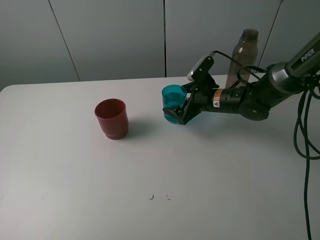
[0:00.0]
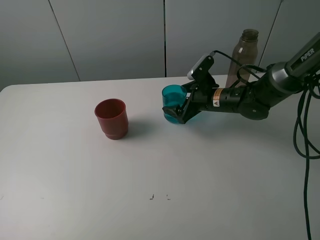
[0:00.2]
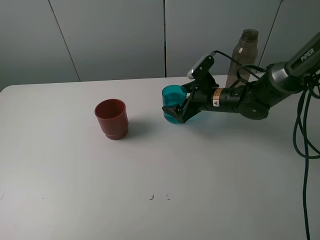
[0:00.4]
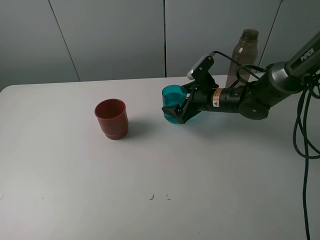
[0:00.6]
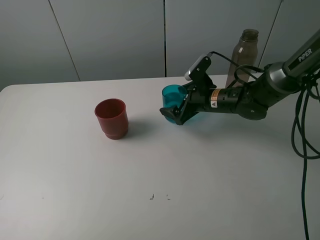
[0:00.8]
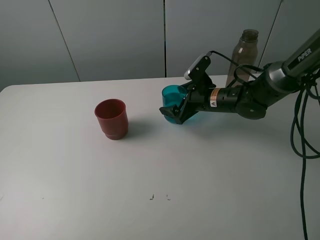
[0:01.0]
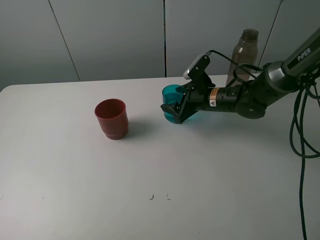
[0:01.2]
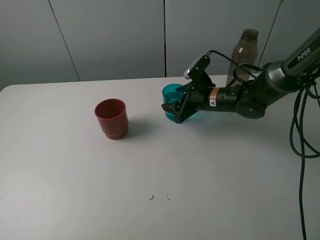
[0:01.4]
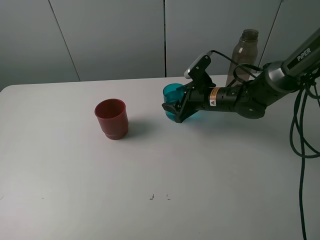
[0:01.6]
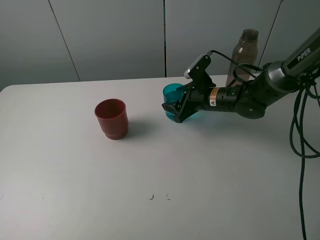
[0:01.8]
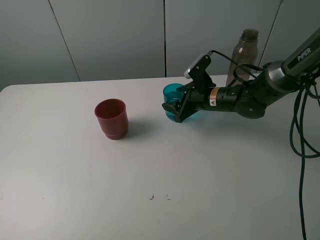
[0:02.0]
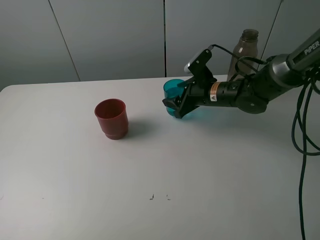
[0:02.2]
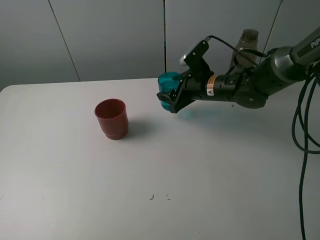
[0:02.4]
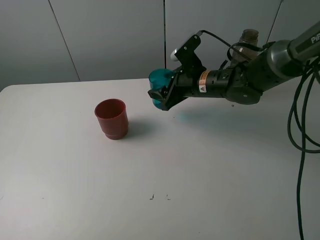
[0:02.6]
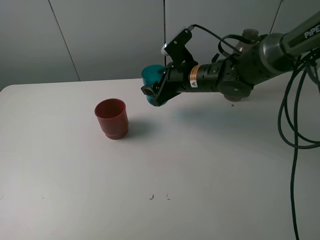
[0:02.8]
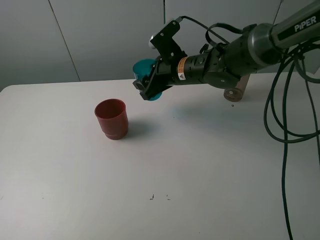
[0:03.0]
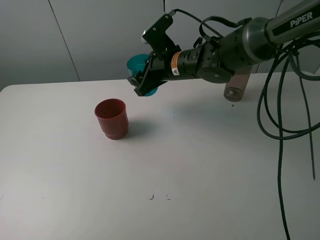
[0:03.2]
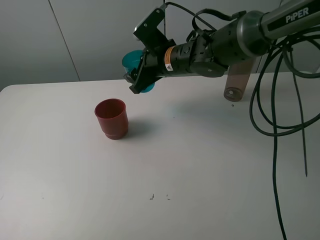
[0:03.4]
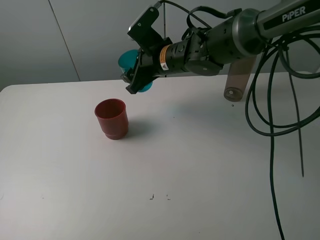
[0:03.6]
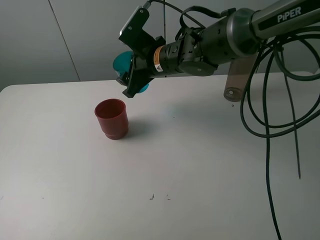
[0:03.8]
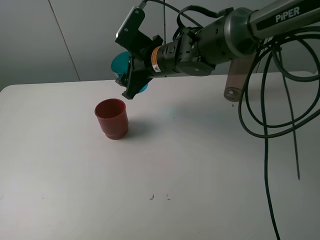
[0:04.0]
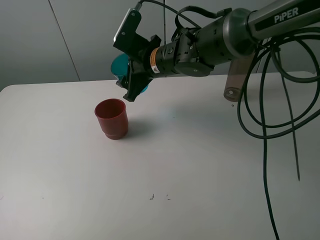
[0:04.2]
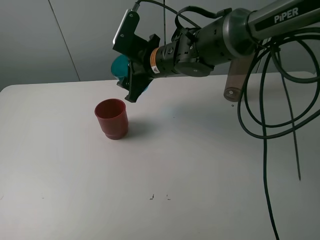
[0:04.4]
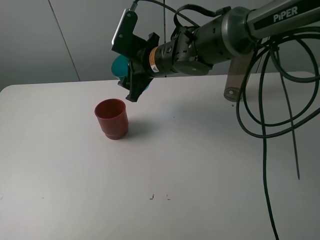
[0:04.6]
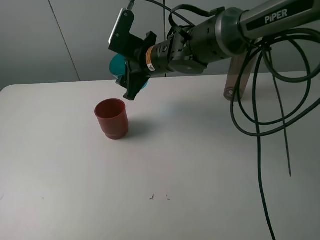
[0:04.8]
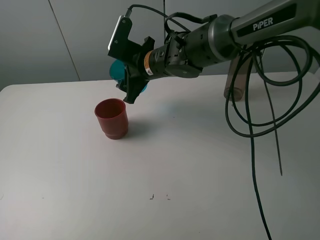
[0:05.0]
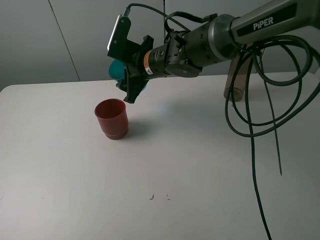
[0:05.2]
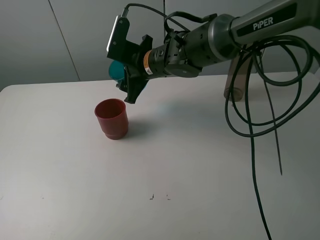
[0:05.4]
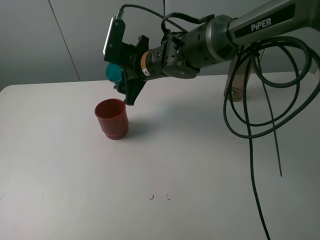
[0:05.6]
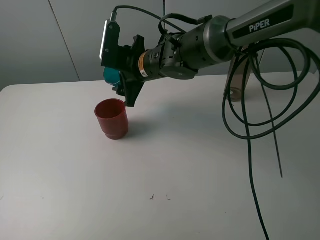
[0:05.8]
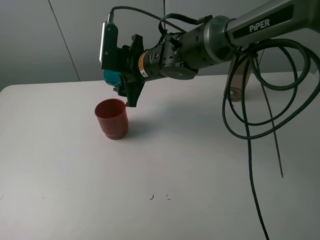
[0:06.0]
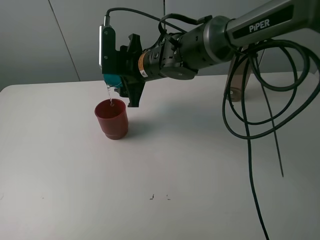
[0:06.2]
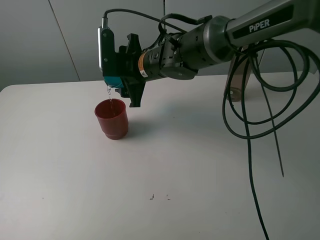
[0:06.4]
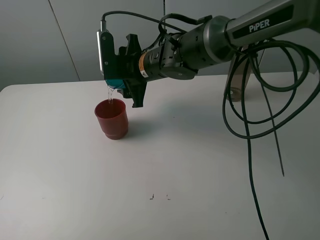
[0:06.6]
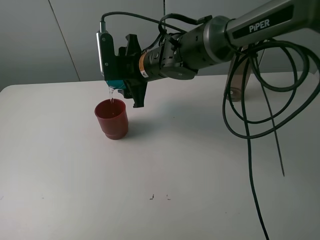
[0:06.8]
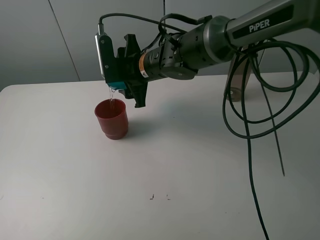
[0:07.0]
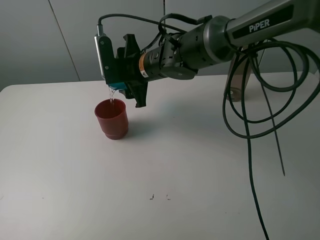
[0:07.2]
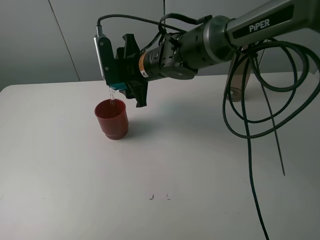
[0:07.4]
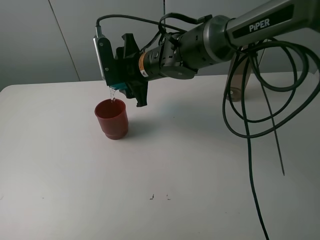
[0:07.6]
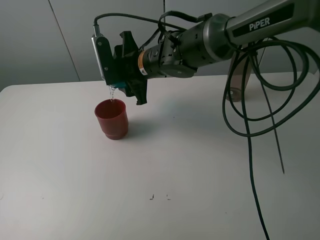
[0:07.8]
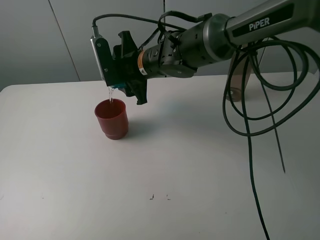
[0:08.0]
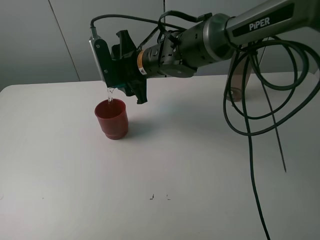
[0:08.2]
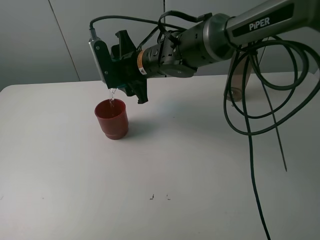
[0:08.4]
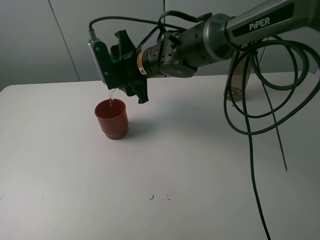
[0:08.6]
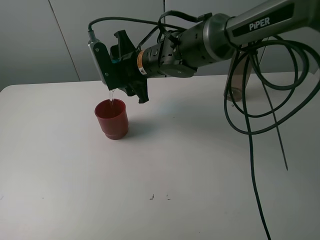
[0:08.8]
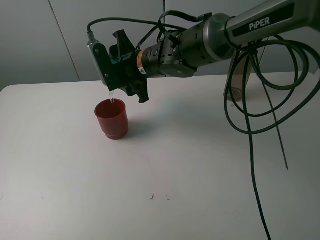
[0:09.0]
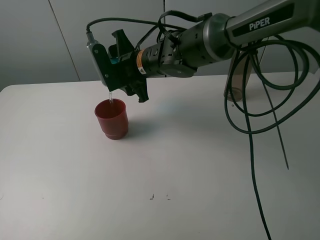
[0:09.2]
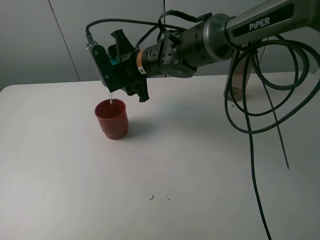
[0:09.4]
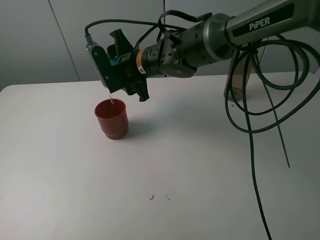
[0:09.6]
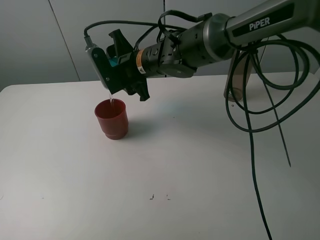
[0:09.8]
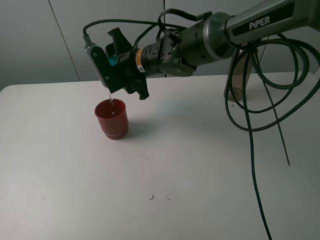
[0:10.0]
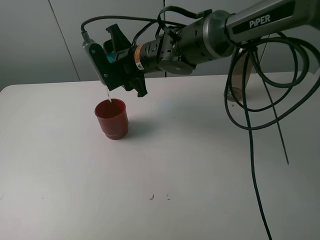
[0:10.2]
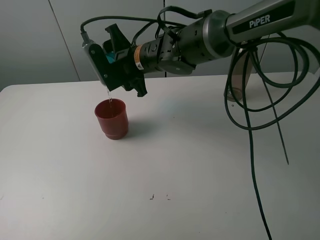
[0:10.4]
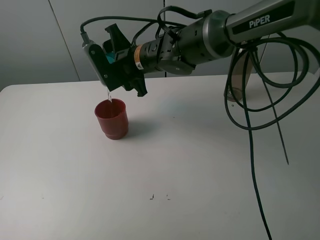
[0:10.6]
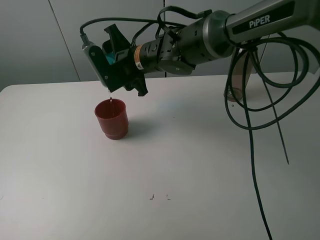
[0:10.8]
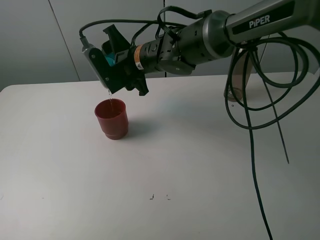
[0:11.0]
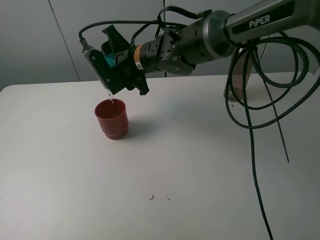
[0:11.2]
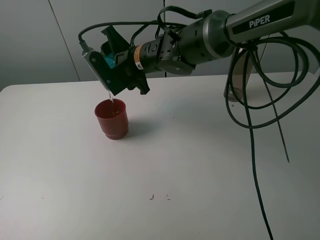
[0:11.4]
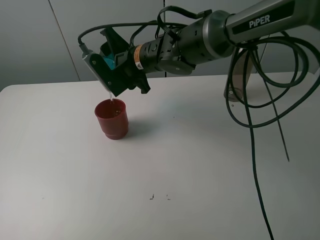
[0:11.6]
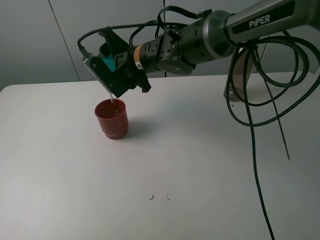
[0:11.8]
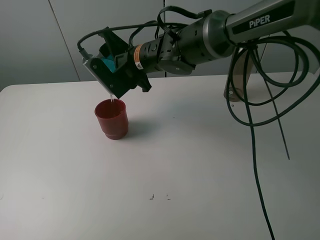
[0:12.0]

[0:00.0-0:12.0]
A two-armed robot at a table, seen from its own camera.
Task of the whole recording: pick up the bottle and pour water into the cup, then pick up the cup containing water and pour it into another cup.
0:00.0 to 0:01.6: The right gripper closes up.
0:01.6 to 0:03.0: The right gripper goes roughly 10 cm upward and to the left.
0:03.0 to 0:04.4: The right gripper ends up about 5 cm from where it was.
0:04.4 to 0:06.0: The grippers move only a little.
0:06.0 to 0:07.6: The grippers stay close to where they were, moving slightly.
0:07.6 to 0:10.4: There are only small adjustments of the grippers.
0:10.4 to 0:12.0: The grippers stay close to where they were, moving slightly.

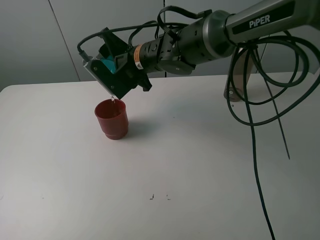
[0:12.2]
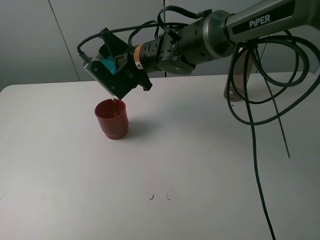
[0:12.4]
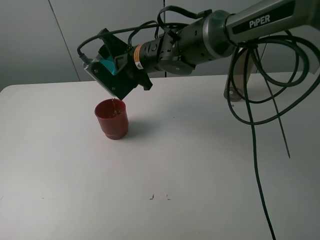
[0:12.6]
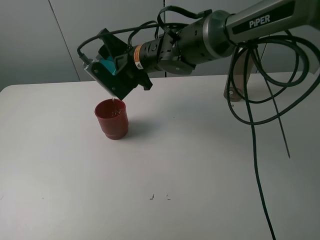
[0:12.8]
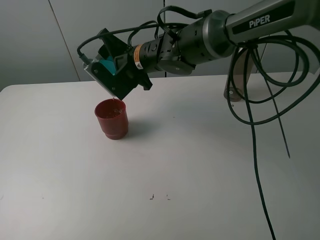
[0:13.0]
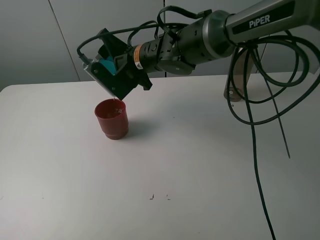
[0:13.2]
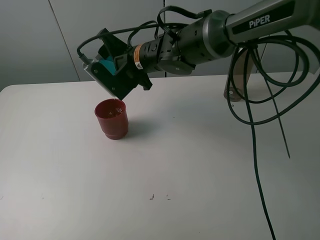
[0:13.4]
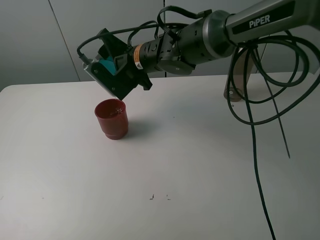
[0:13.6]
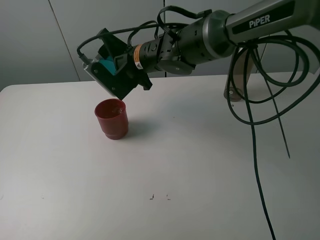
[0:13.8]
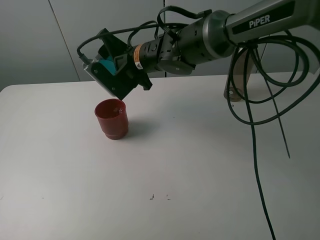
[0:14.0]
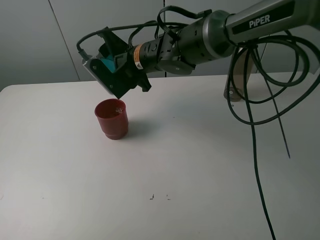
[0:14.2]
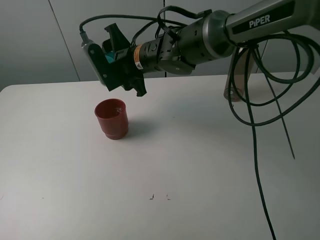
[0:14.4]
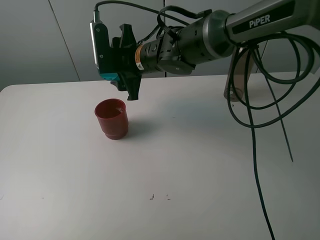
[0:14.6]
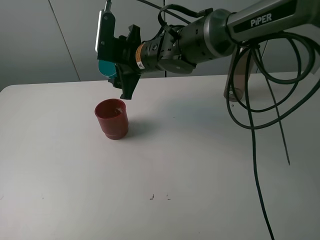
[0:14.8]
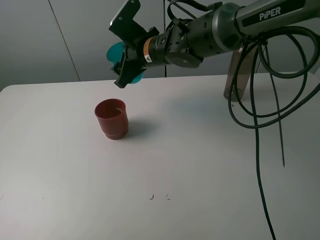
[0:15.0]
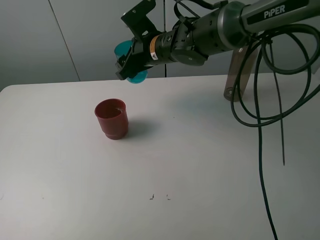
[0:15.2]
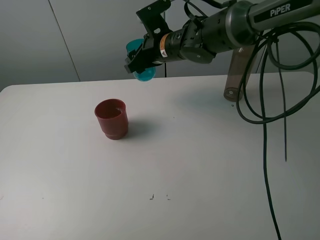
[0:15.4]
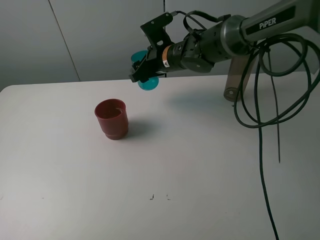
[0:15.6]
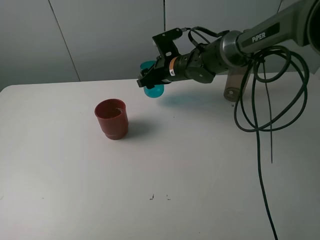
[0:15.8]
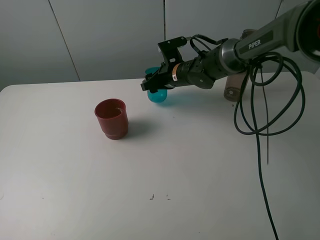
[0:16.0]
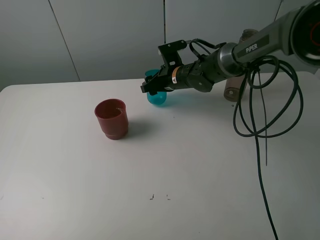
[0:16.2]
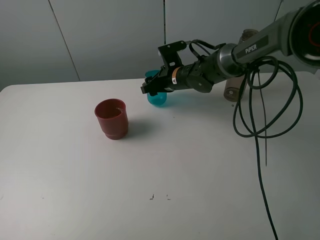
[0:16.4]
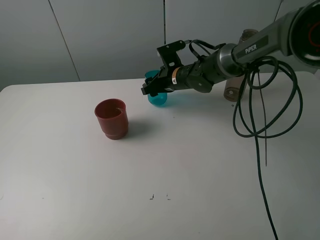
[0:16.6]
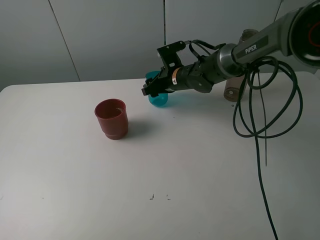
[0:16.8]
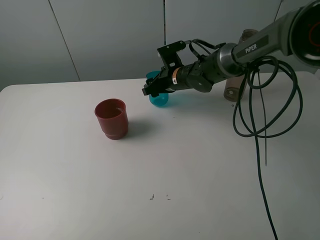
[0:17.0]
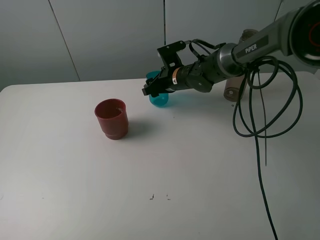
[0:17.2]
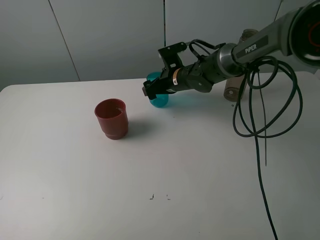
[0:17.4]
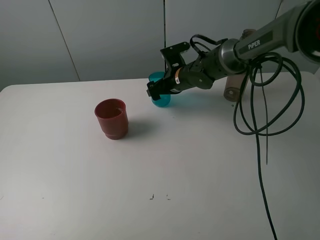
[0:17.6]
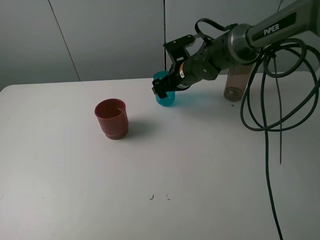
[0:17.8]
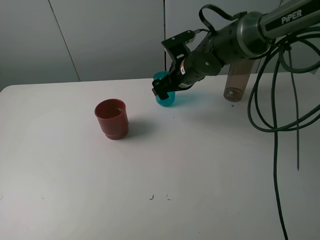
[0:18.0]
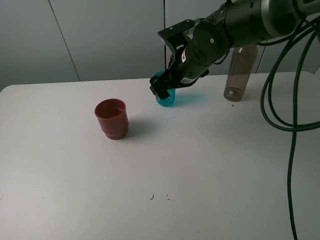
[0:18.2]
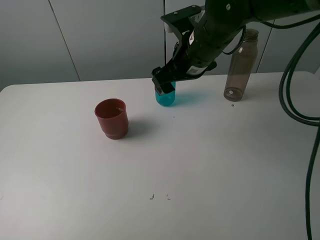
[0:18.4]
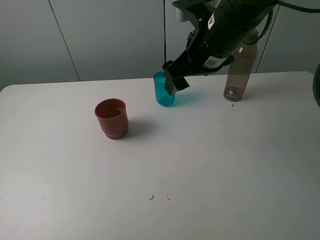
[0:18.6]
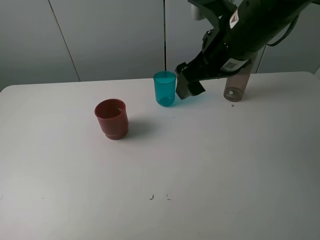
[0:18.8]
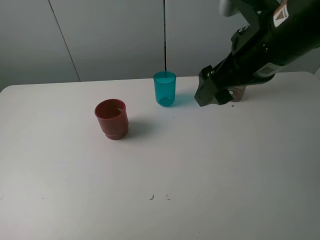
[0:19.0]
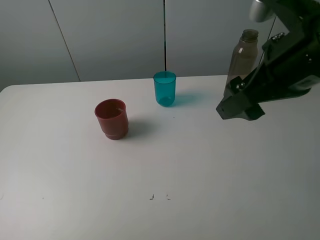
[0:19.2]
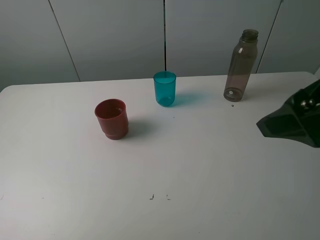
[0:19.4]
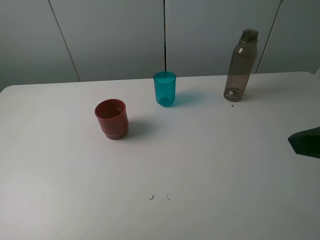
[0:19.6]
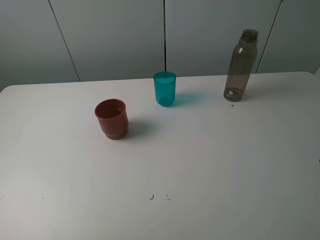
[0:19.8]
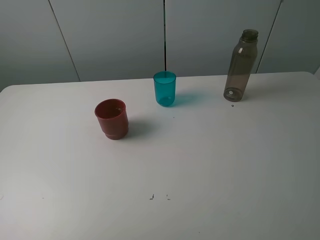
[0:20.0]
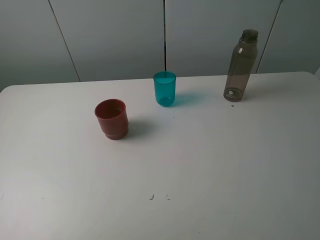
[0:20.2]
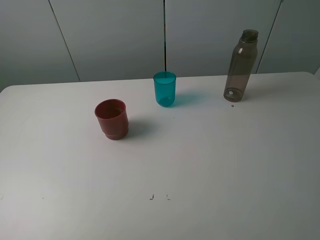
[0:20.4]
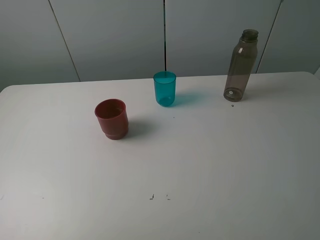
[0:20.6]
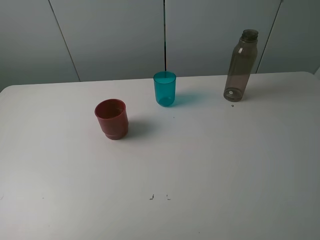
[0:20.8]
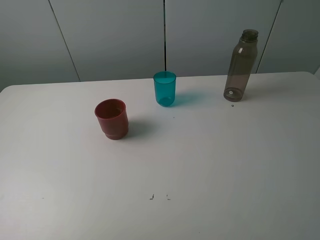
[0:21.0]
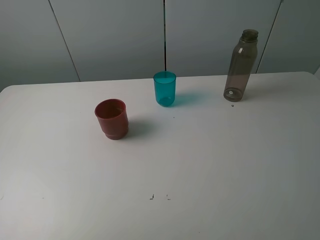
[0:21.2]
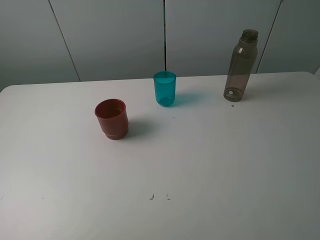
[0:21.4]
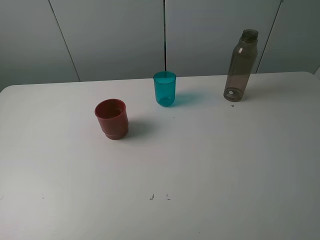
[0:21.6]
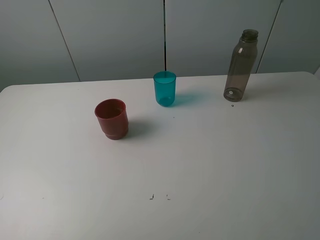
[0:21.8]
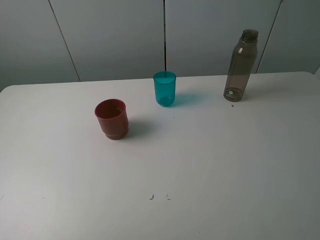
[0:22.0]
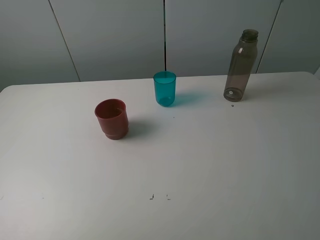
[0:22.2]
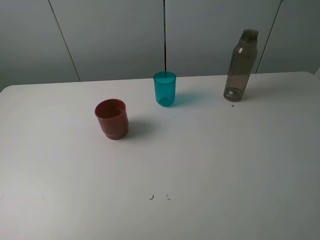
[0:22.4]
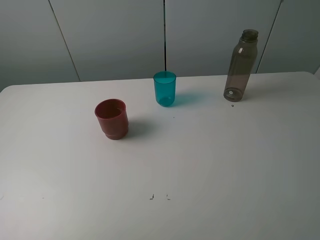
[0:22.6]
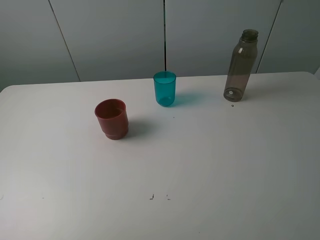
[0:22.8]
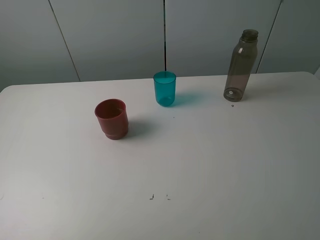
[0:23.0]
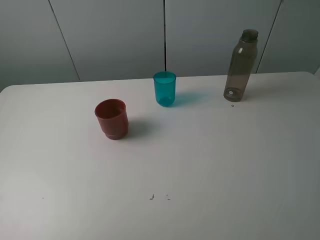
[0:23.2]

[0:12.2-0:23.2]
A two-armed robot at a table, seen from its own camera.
Task of the whole recording: pick up the bottle and pour water into the cup, then pick up the cup containing water and pour it into another cup.
Step, 0:14.2 to 0:17.6: Place the blue cup with the right gripper.
0:12.2 to 0:13.8: Both grippers stay about where they are.
0:13.8 to 0:15.4: The right gripper is displaced to the right by roughly 5 cm.
0:15.4 to 0:17.0: The right gripper travels downward by about 10 cm.
0:17.0 to 0:18.4: The right gripper heads upward and backward, covering approximately 20 cm, and opens its fingers.
0:18.4 to 0:20.0: The right gripper shifts approximately 35 cm backward and to the right.
0:21.6 to 0:23.2: The two grippers keep their place.
